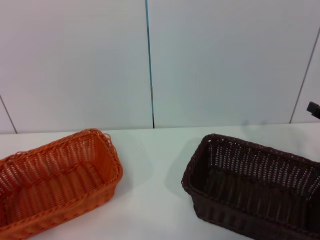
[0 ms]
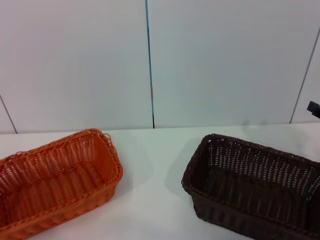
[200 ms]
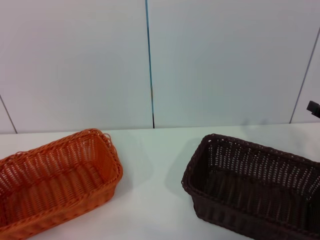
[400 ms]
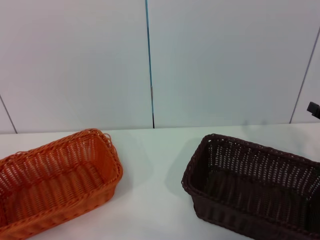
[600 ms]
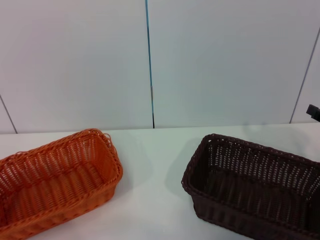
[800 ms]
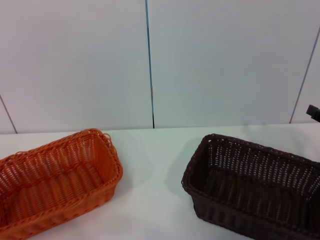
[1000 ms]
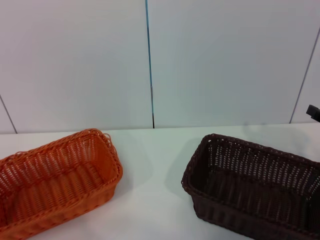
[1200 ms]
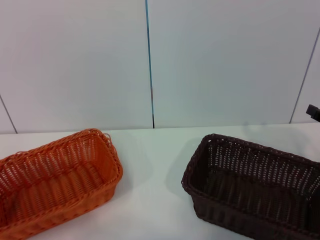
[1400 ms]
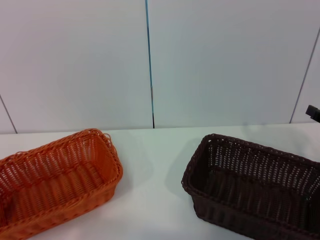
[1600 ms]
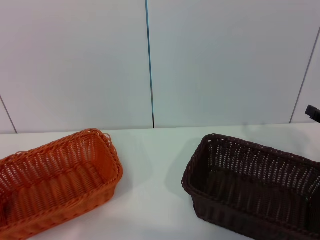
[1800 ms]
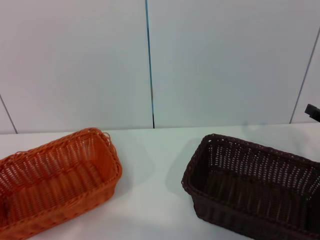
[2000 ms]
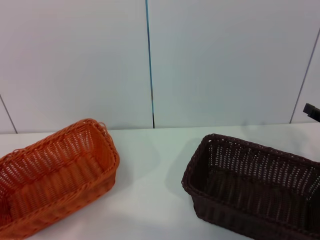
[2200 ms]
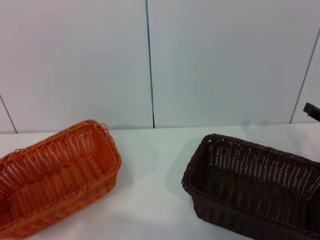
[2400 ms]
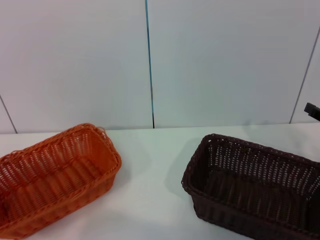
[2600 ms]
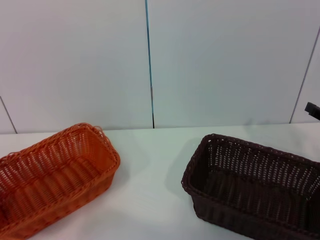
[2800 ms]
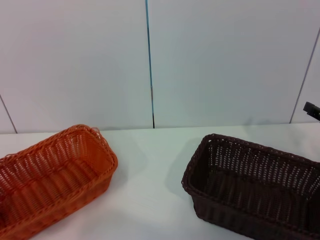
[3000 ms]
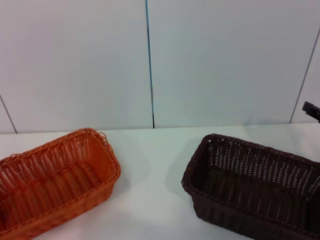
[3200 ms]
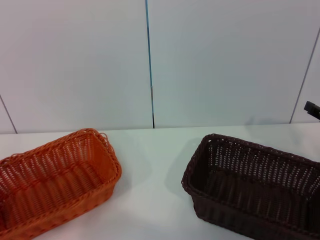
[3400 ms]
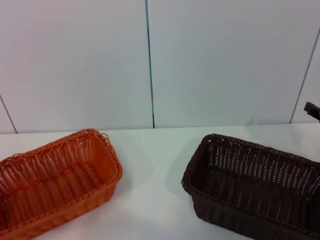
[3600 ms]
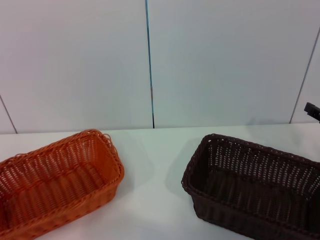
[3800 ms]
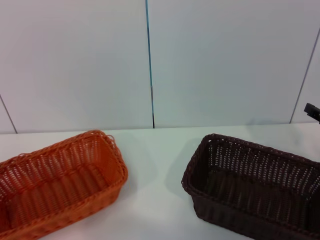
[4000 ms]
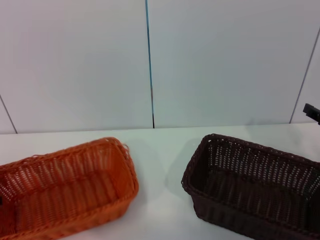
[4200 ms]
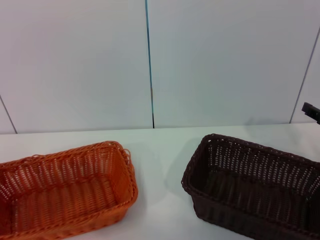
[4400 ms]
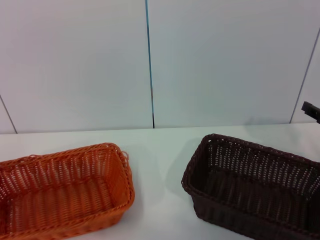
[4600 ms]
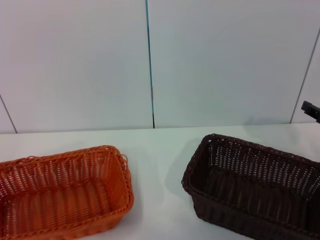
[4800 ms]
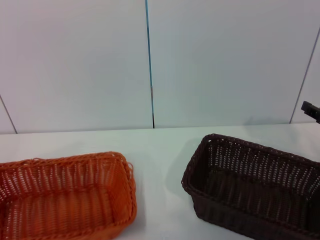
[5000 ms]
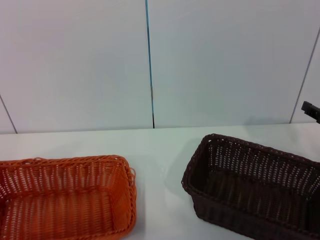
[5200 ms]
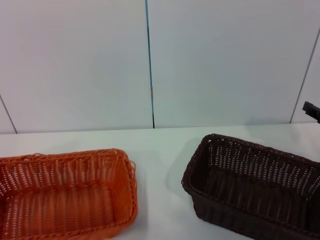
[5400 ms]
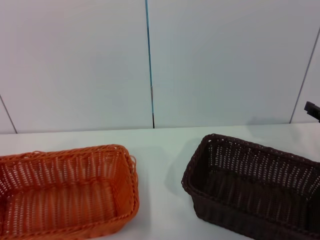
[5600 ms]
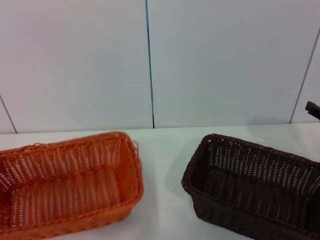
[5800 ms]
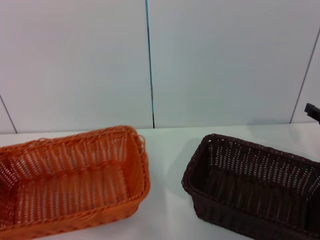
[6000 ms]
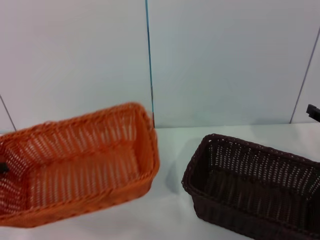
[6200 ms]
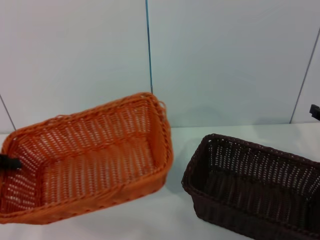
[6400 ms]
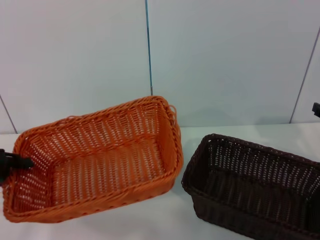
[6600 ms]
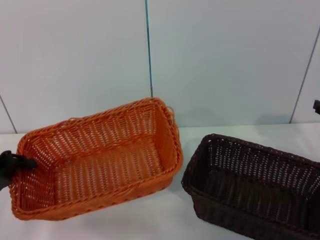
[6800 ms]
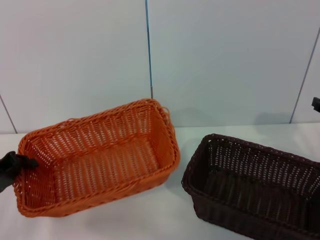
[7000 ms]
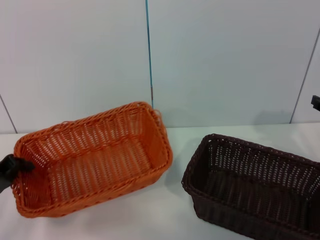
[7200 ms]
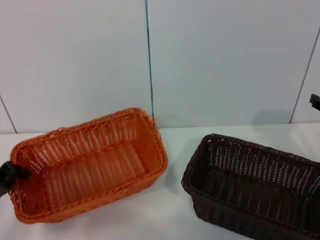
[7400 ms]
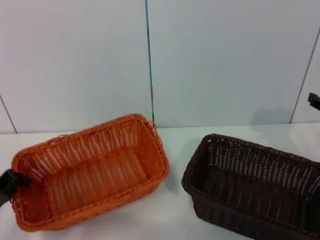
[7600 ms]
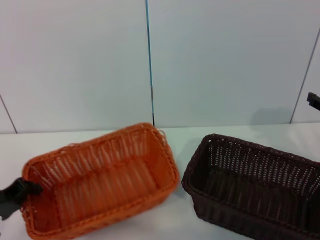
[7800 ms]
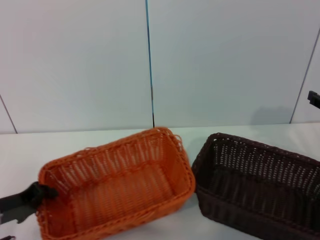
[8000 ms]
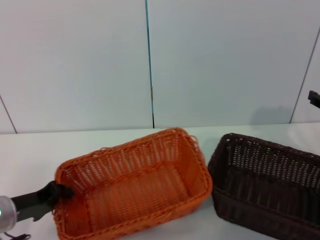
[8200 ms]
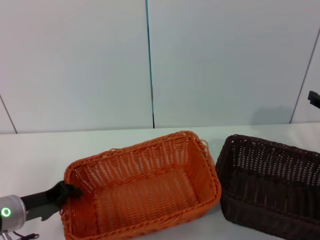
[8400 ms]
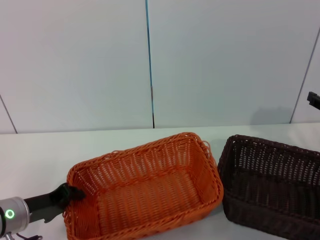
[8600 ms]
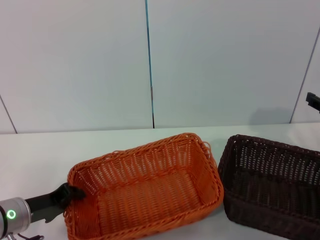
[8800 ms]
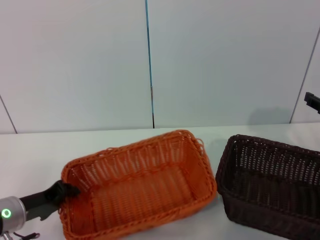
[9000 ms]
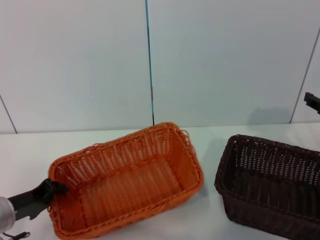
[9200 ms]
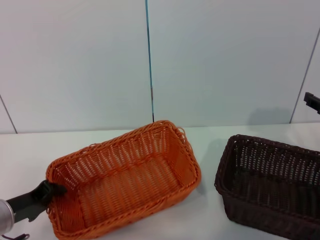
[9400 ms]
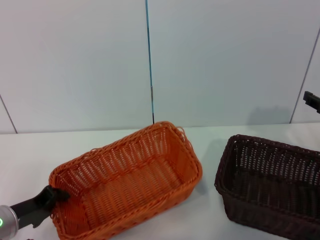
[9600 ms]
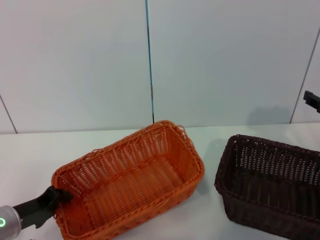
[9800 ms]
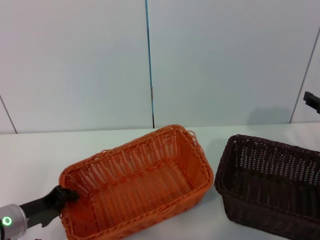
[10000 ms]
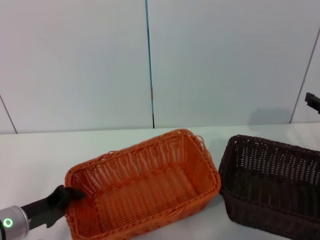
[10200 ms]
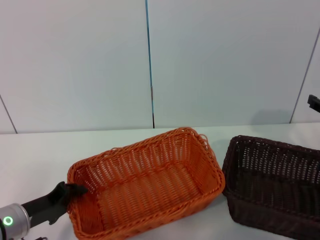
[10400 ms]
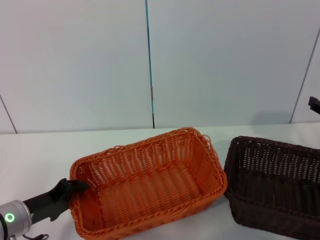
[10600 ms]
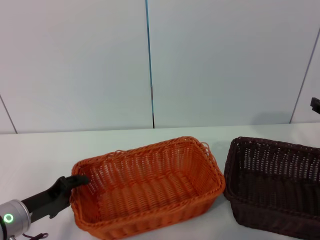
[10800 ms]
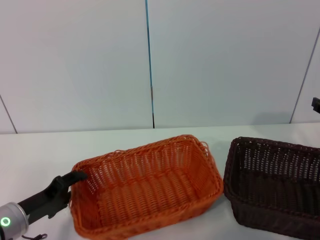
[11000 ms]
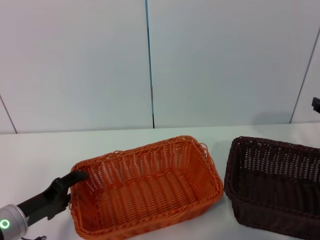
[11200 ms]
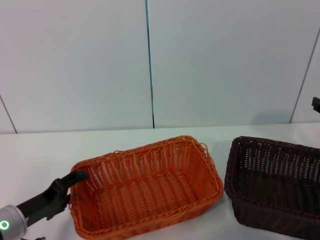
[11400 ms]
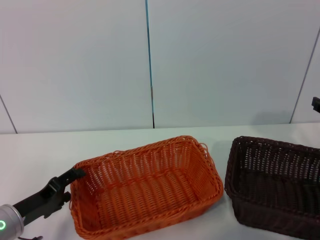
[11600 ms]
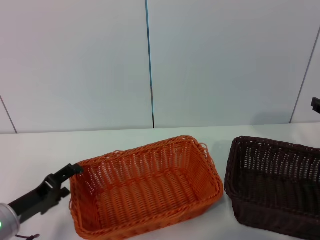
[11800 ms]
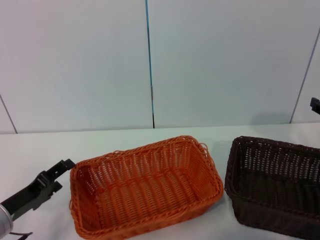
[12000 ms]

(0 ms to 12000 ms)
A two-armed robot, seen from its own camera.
Step, 0 ms - 5400 ms: Pick up the light basket with the left gripper.
Step, 5800 ms - 11000 ms: Place the light basket in the center of view with the left gripper.
1600 ms - 3000 ms: The left gripper closes.
3000 ms - 4400 ms: The grippers make only small movements.
6000 ms - 7600 ms: The left gripper is displaced downward and to the right by some 10 cm.
7600 ms - 9000 ms: The left gripper is displaced to the right by approximately 5 cm.
9000 ms - 10400 ms: The grippers stay close to where they were, moving slightly.
10400 ms - 12000 ms: The left gripper opens up.

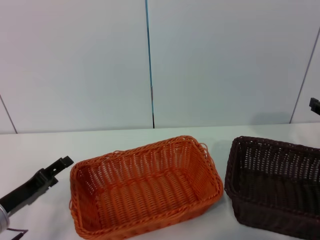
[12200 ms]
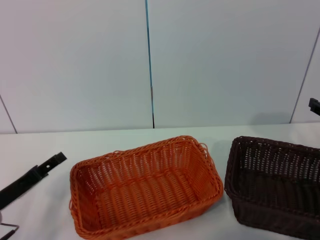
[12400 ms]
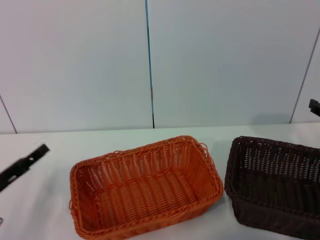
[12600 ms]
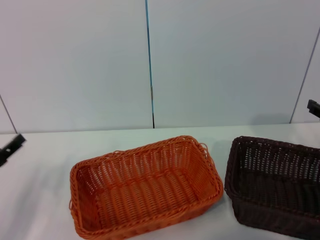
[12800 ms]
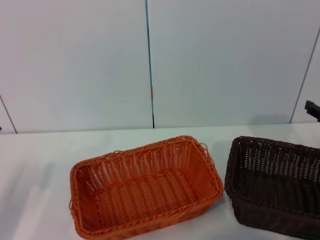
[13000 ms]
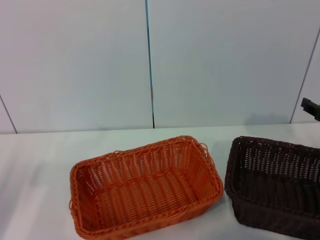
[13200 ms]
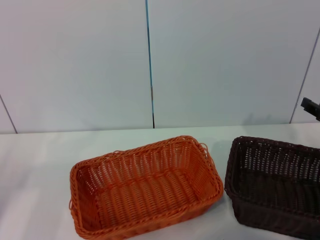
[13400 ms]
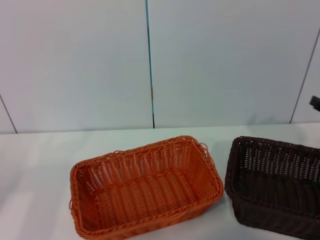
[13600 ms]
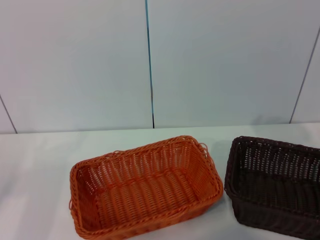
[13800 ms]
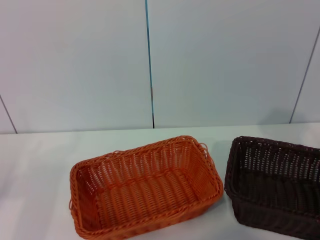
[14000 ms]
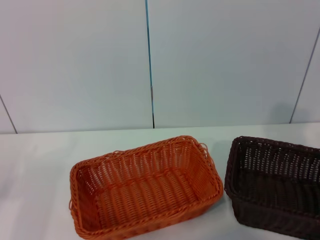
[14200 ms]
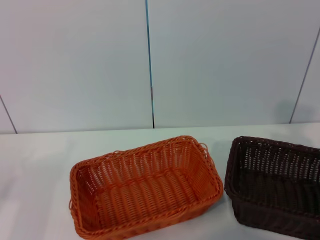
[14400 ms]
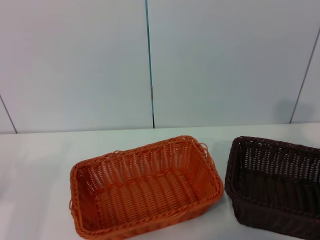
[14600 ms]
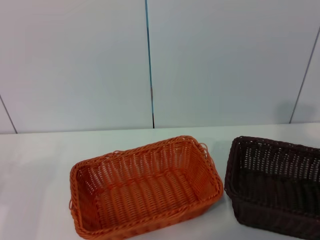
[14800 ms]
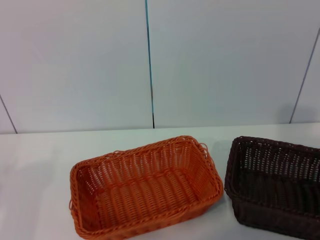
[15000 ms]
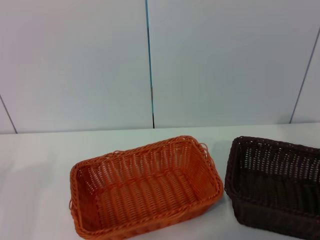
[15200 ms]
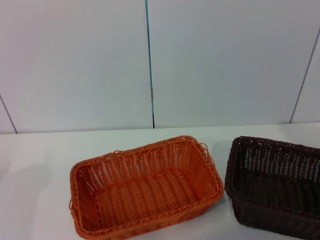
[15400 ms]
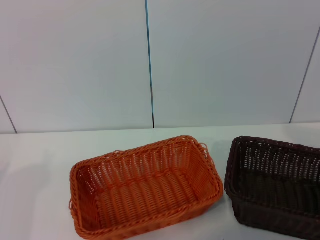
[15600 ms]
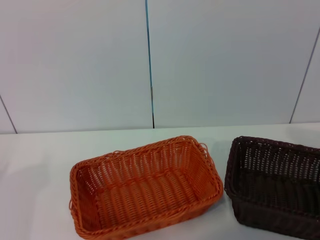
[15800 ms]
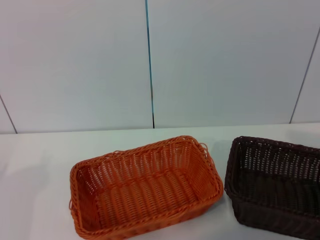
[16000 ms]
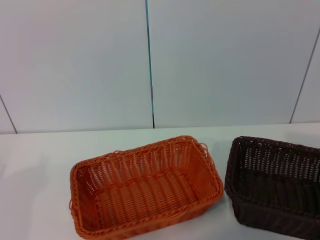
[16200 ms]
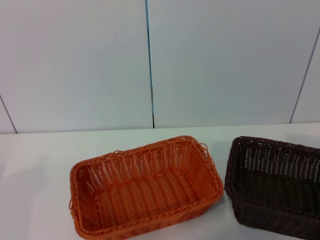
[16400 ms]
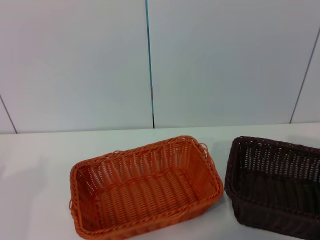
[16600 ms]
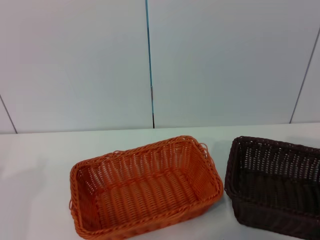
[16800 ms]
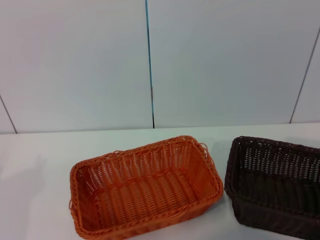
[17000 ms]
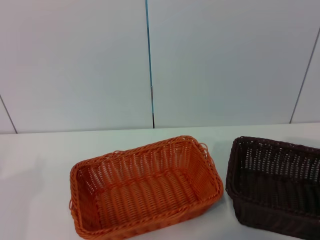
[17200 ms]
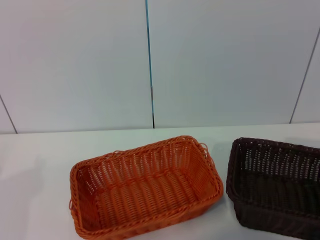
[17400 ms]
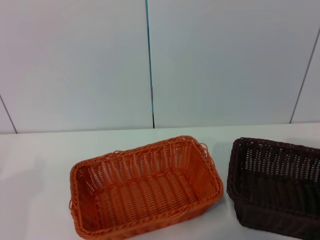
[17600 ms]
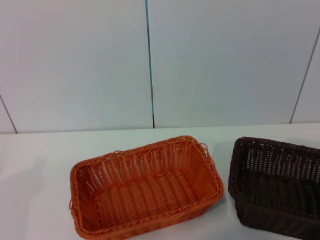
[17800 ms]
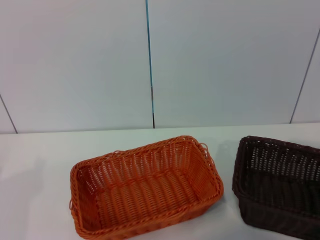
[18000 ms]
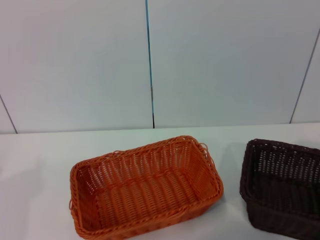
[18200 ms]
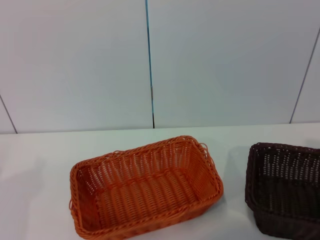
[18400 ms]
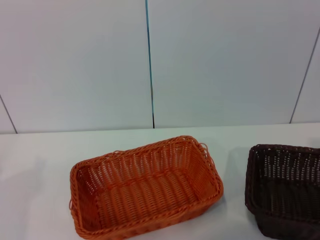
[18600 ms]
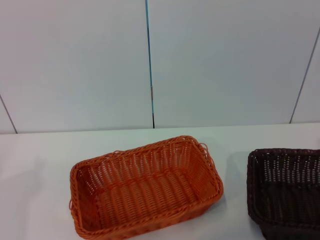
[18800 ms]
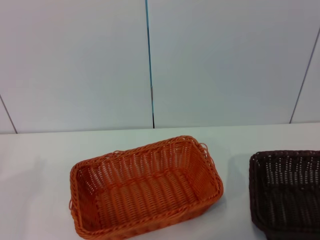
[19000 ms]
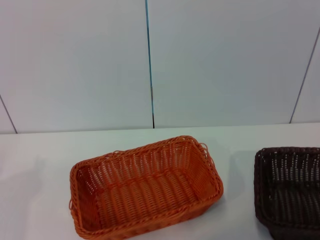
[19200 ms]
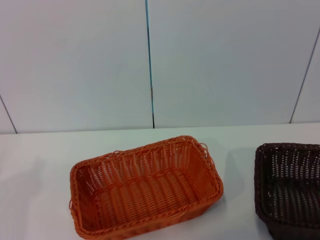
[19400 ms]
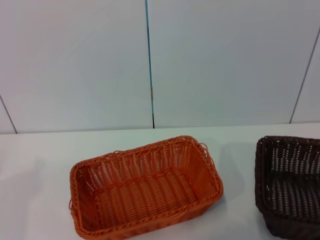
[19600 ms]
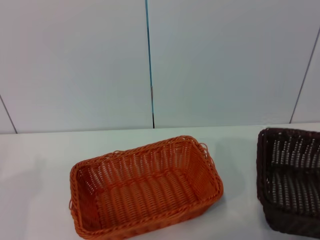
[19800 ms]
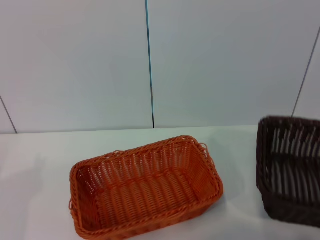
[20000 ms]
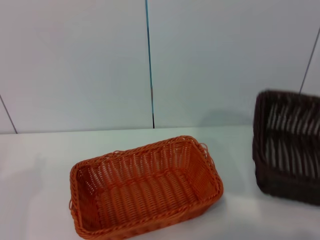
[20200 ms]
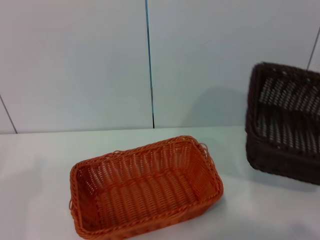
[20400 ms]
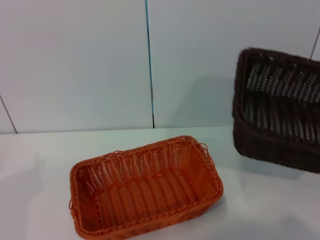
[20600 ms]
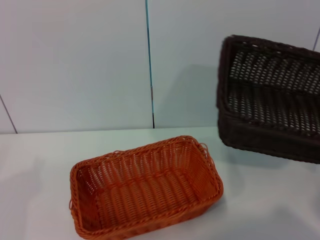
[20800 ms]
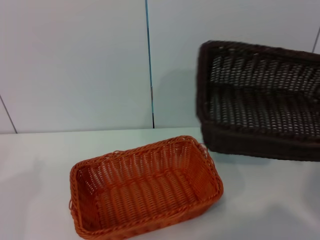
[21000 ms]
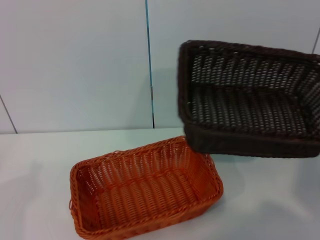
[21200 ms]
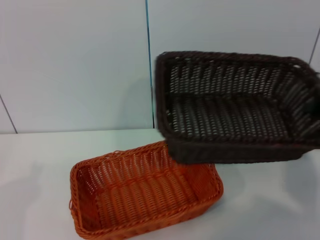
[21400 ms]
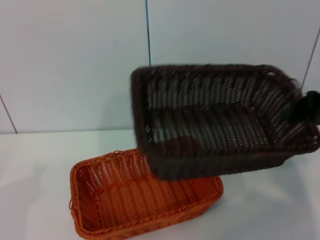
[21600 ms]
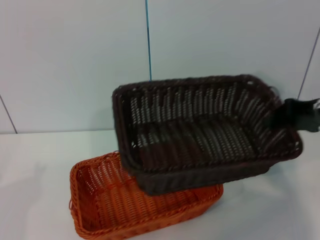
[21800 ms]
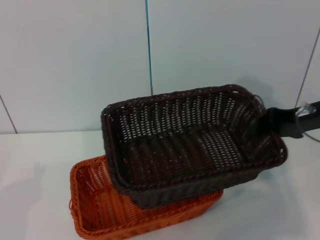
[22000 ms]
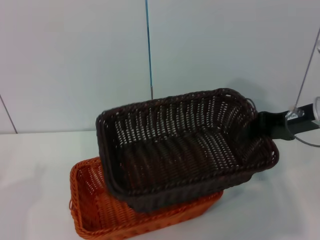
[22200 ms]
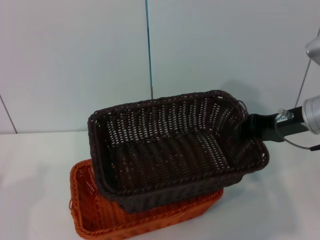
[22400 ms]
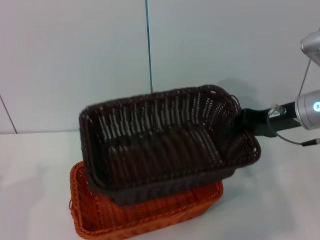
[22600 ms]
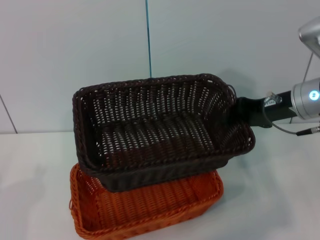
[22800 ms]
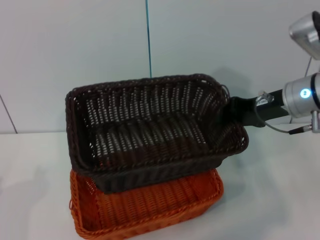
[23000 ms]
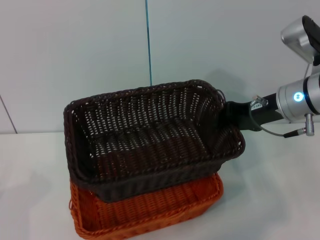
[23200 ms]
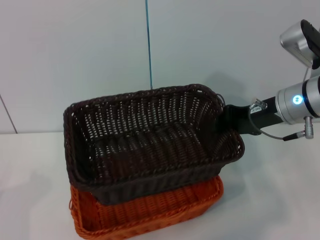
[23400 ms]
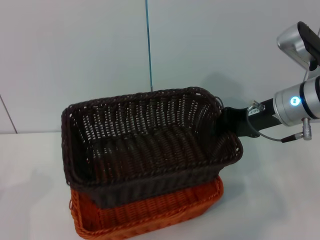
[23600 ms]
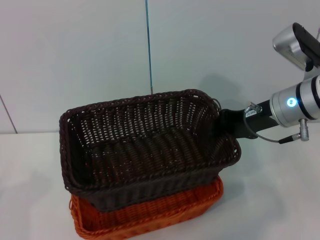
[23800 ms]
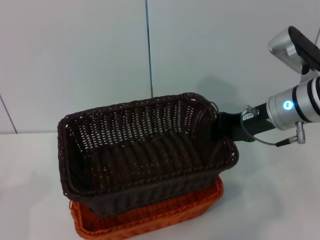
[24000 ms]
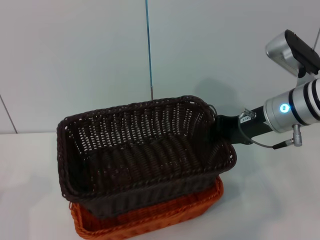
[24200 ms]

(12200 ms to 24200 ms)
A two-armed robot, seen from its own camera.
Step, 12200 ms - 18800 ms: Pick up the dark basket with the right gripper.
12200 ms - 13800 ms: The left gripper heads to the left, covering about 10 cm.
16600 ms - 18200 ms: The right gripper closes its fingers.
18200 ms - 19800 ms: The right gripper moves to the right and backward, about 10 cm.
19800 ms - 21200 ms: The right gripper is displaced forward, to the left and upward by about 15 cm.
21200 ms - 22600 ms: The right gripper heads to the left and forward, covering approximately 15 cm.
22600 ms - 24200 ms: There are only small adjustments of the grippers.
